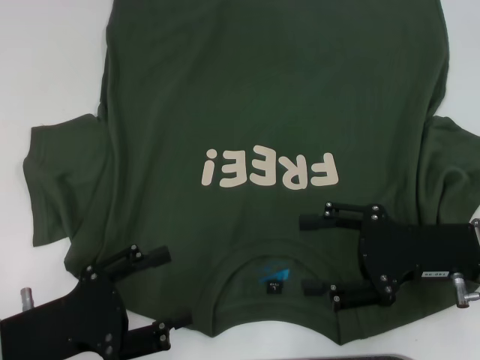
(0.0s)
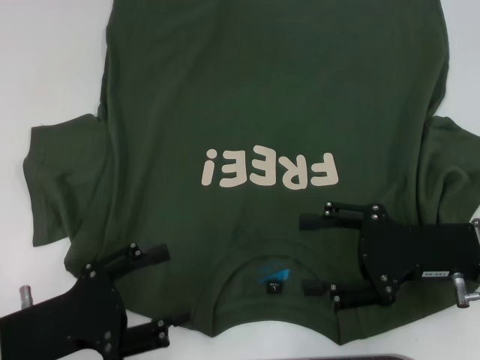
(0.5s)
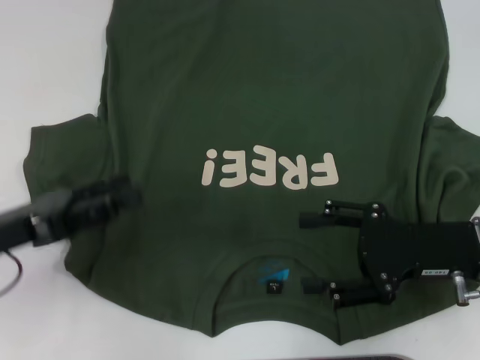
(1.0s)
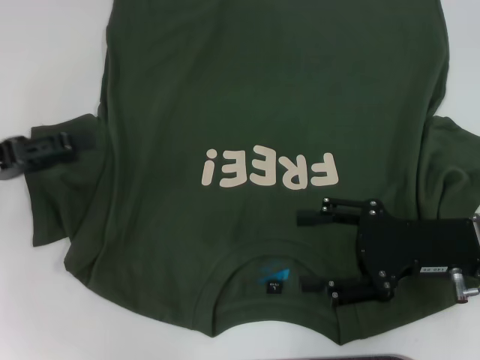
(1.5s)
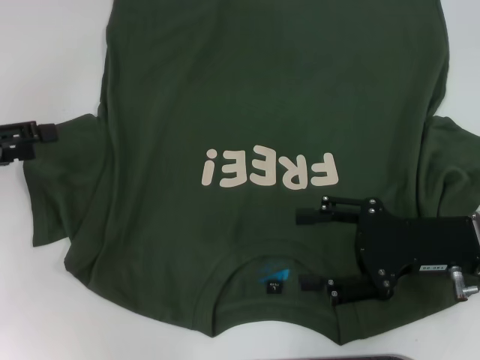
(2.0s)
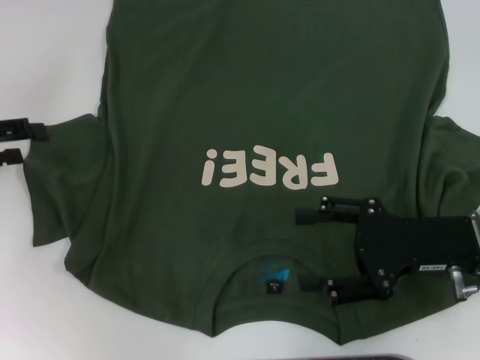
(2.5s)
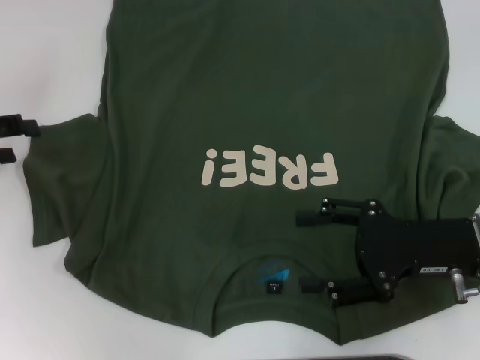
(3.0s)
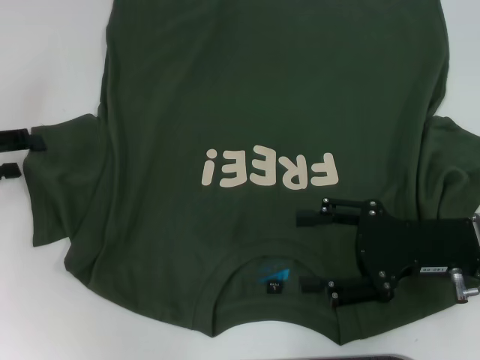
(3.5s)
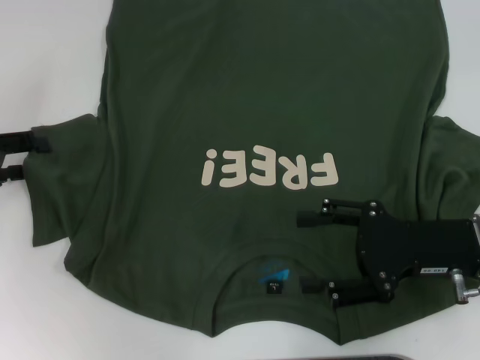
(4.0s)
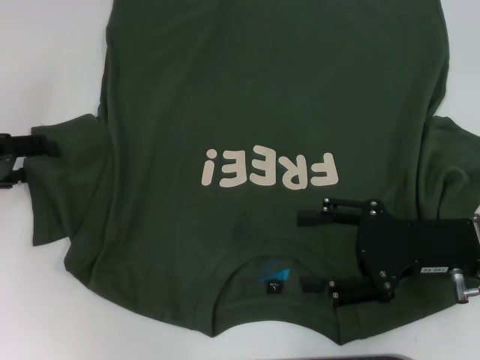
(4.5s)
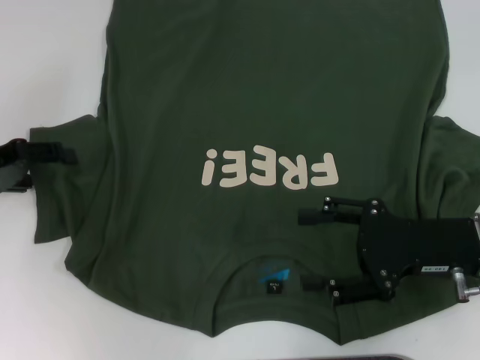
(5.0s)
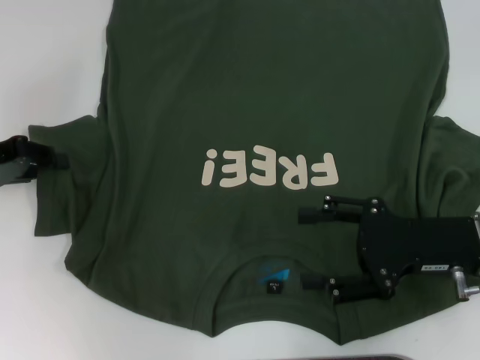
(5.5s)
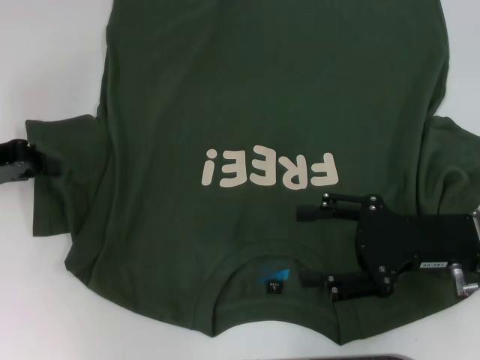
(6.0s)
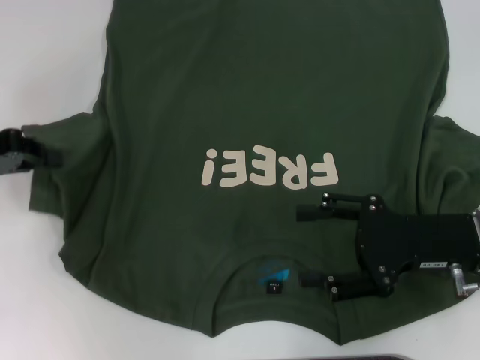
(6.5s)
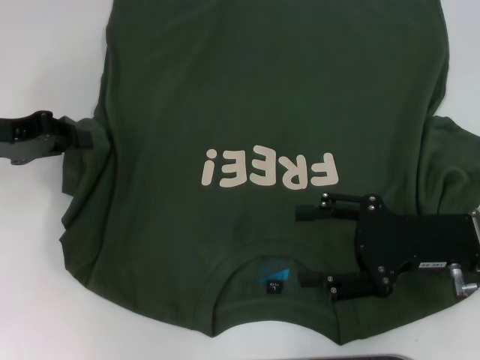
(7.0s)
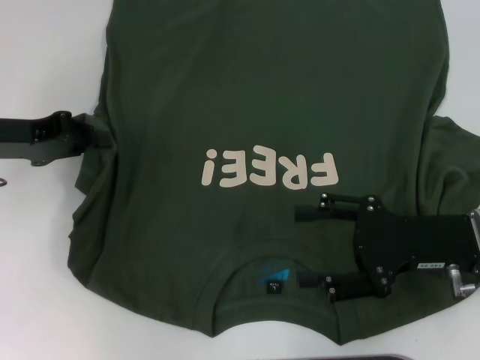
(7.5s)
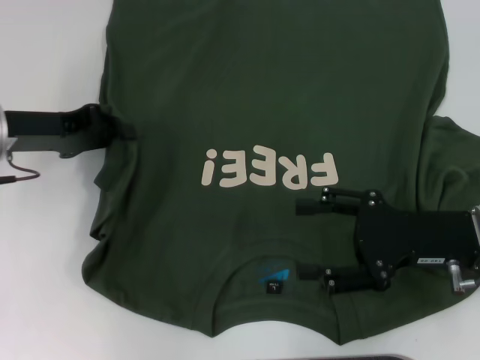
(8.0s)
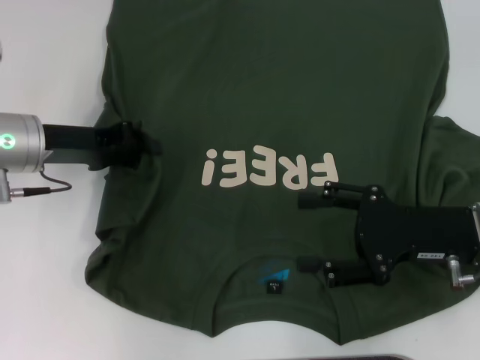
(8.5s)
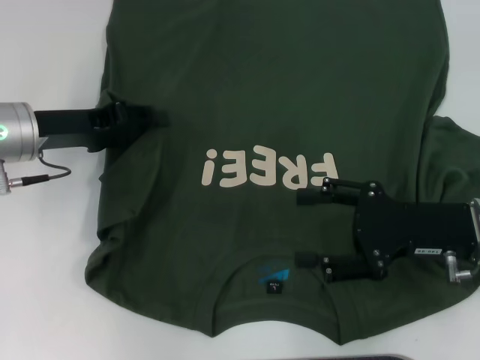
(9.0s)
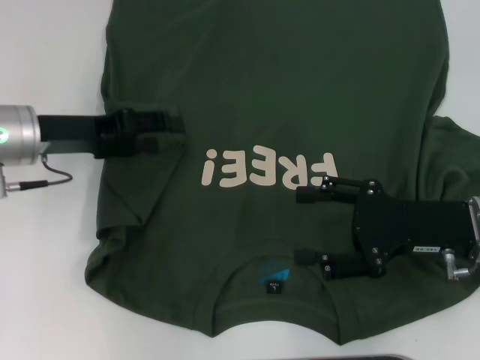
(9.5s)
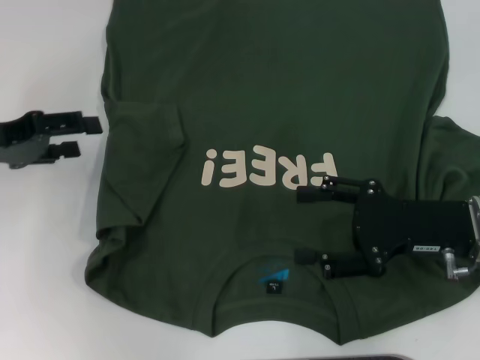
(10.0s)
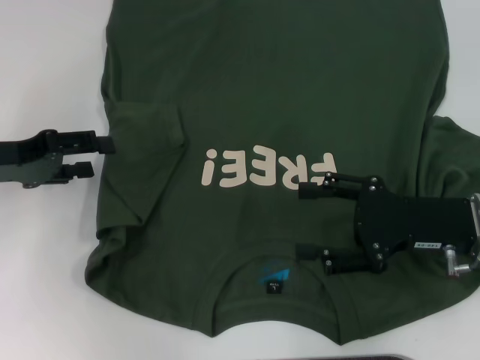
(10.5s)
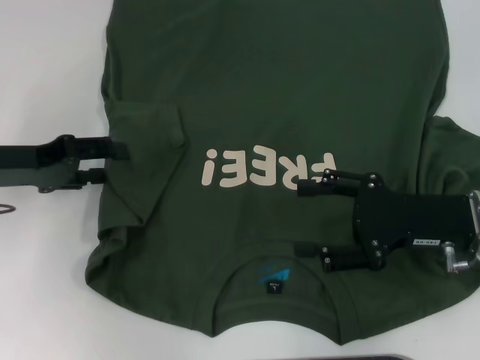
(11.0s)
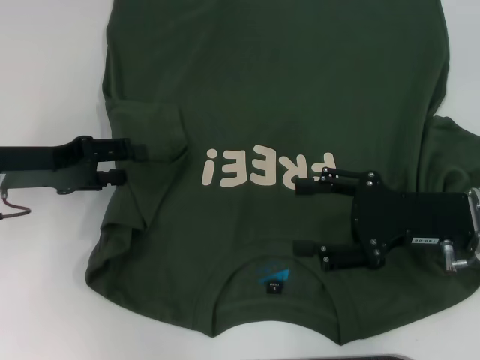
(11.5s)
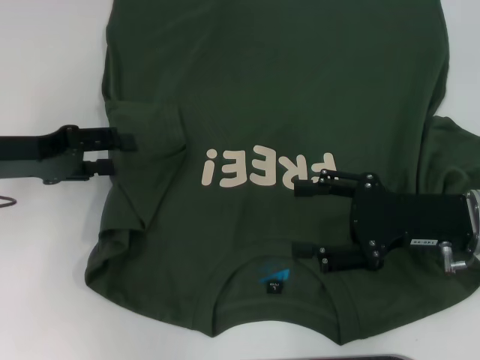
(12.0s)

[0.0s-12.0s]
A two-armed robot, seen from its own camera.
0.0s to 2.0s: The left gripper goes roughly 20 cm forward, to the left and upward.
2.0s to 4.0s: The grippers move only a little.
4.0s to 6.0s: The left gripper closes.
6.0s to 8.0s: The left gripper heads to the right, covering roughly 5 cm.
8.0s to 10.0s: The left gripper changes place by roughly 5 cm, and opens its fingers.
10.0s to 12.0s: The grippers move only a little.

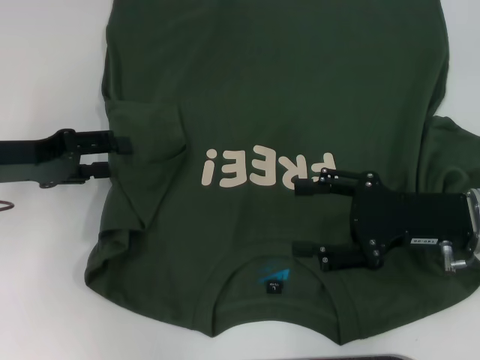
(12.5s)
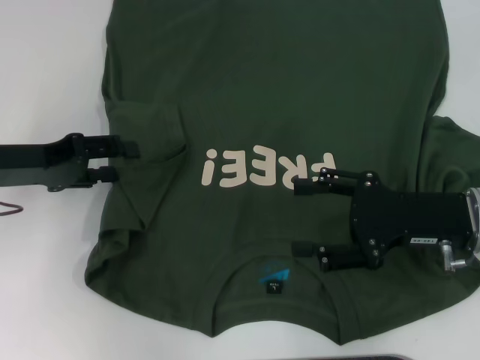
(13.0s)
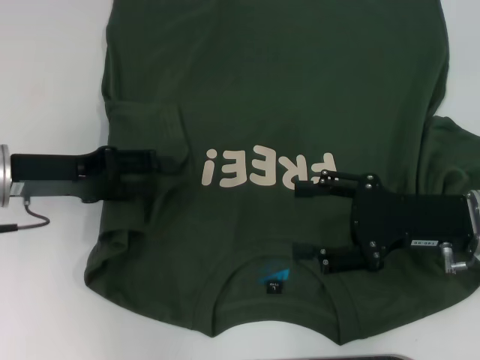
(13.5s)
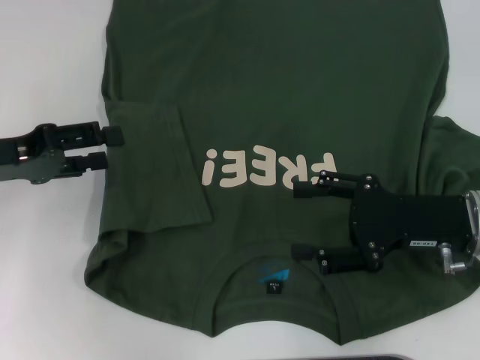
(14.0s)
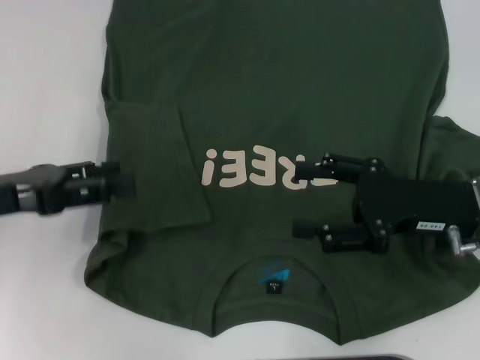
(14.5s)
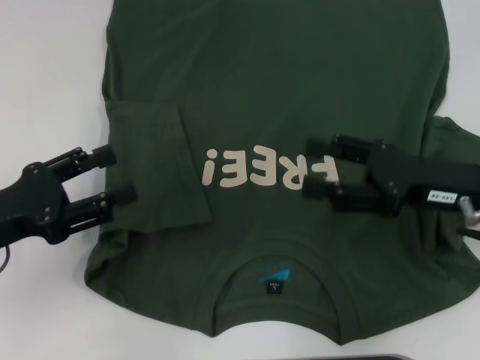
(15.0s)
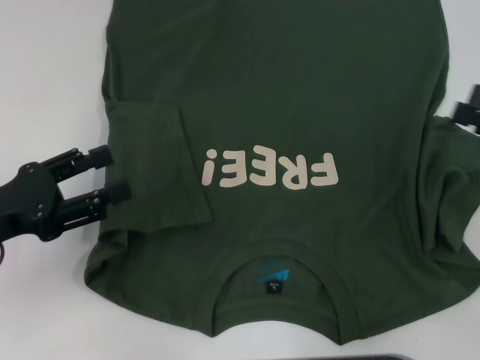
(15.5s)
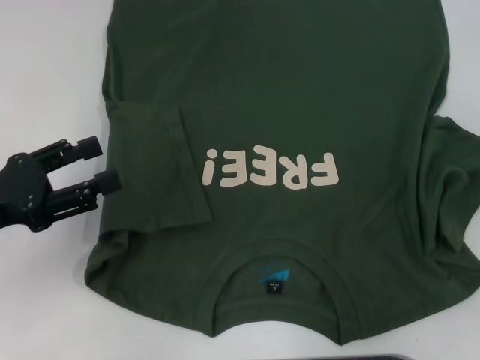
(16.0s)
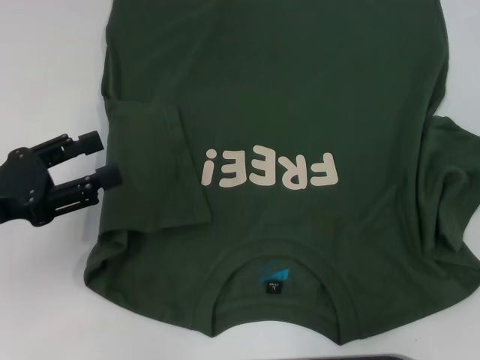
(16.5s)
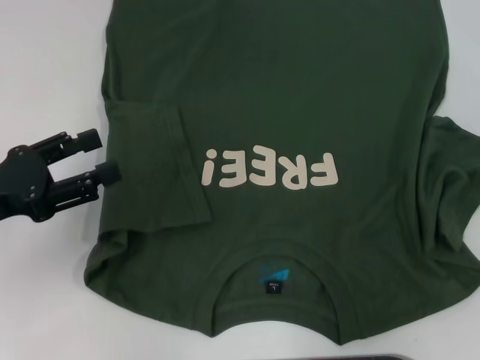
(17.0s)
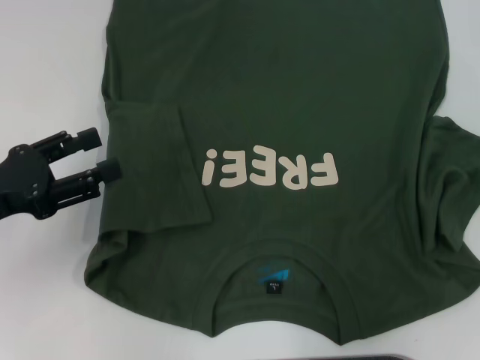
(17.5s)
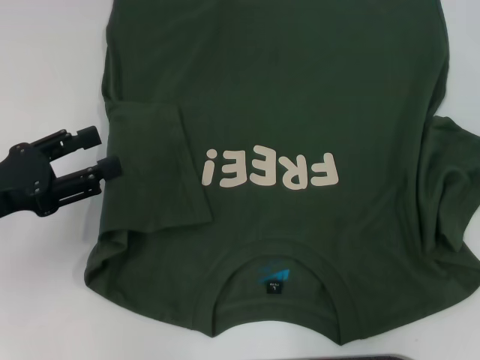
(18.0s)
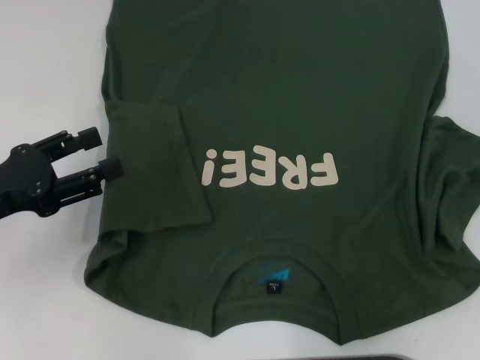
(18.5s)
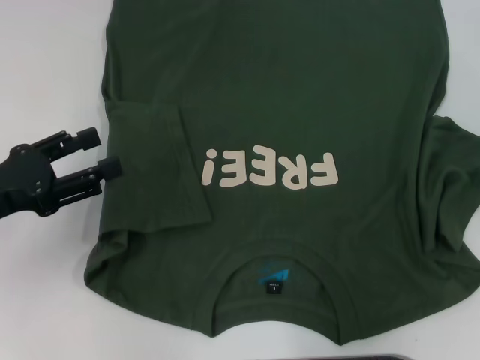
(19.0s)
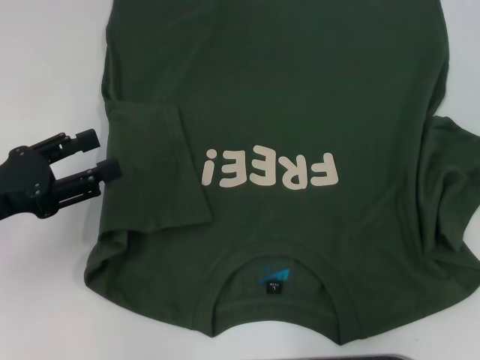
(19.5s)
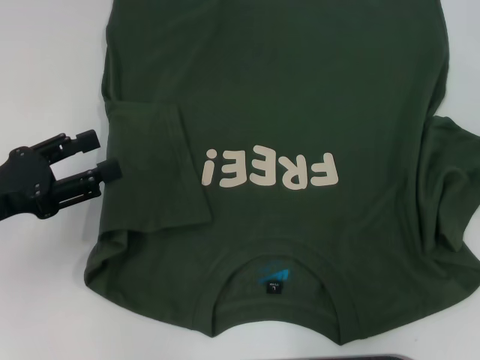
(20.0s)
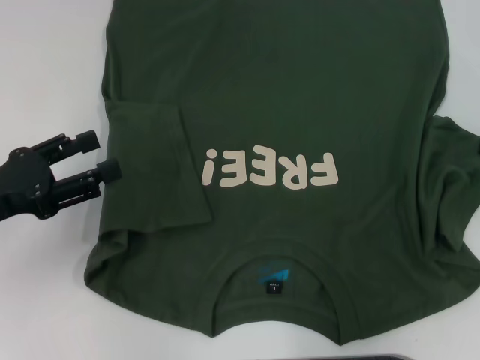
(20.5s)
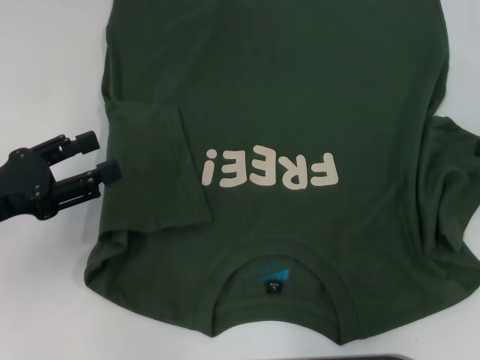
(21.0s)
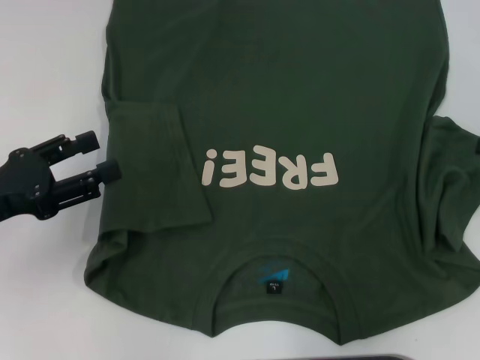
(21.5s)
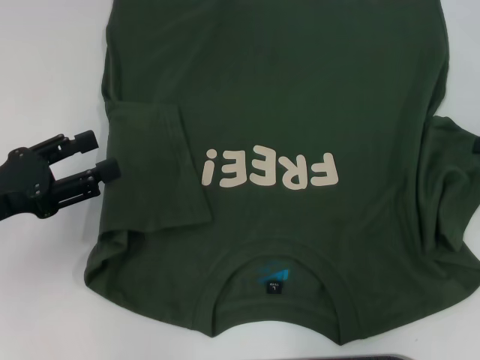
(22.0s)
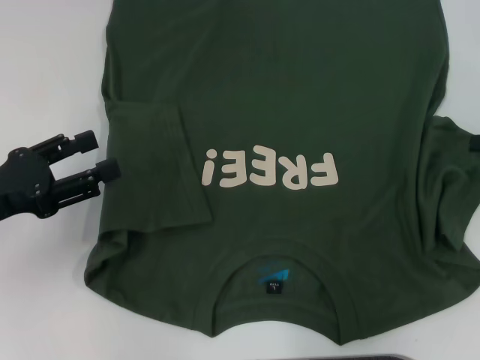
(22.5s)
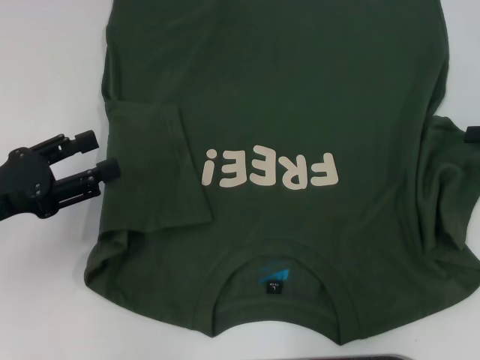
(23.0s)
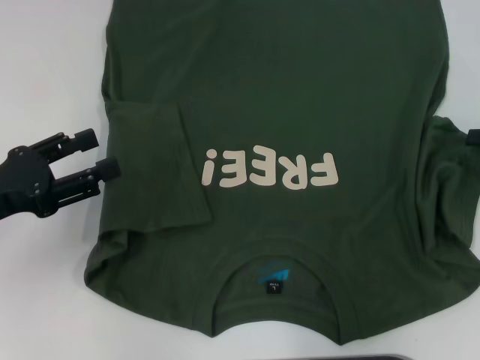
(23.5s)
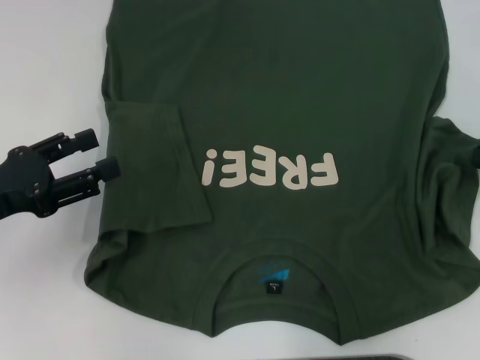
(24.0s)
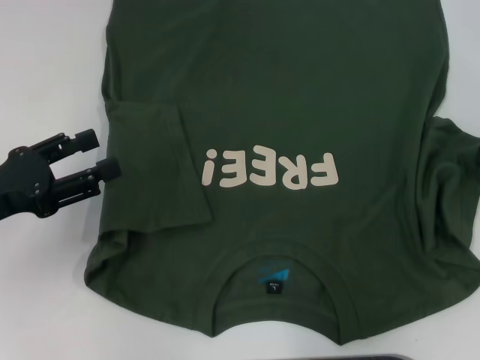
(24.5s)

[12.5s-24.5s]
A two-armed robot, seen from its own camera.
14.5s to 16.5s: The right gripper is displaced to the right by roughly 20 cm.
16.5s to 20.5s: There are only small adjustments of the grippers.
20.5s to 22.5s: Both grippers stay about where they are.

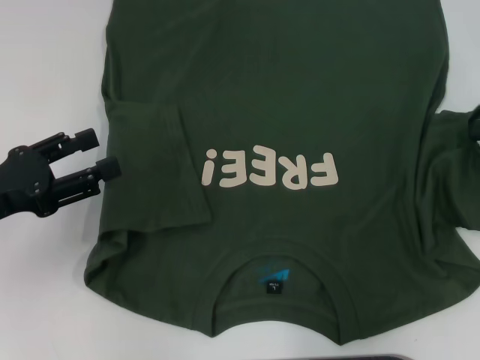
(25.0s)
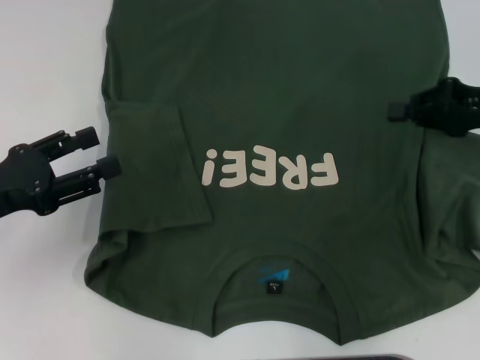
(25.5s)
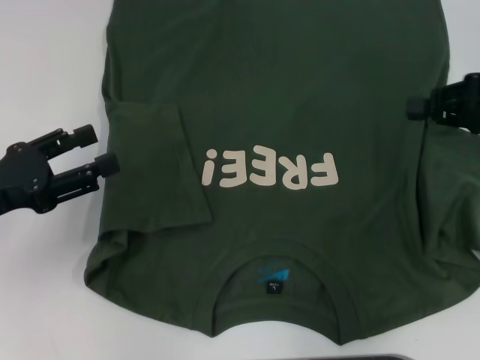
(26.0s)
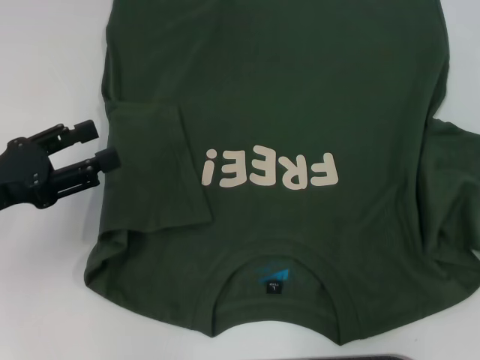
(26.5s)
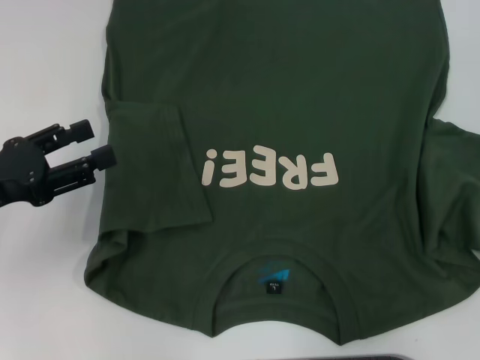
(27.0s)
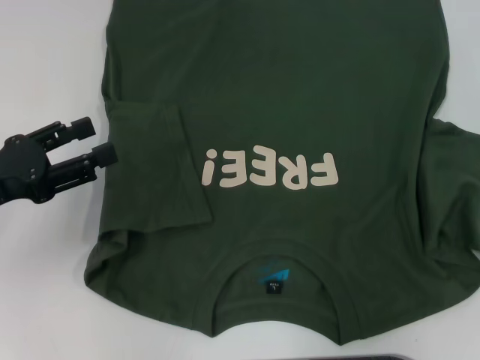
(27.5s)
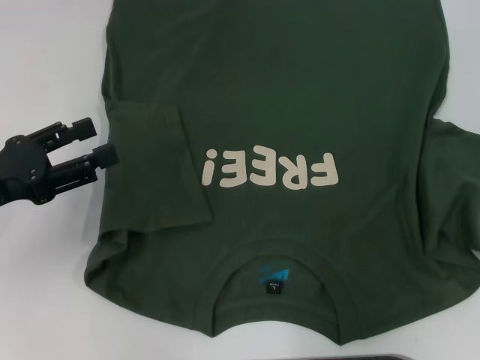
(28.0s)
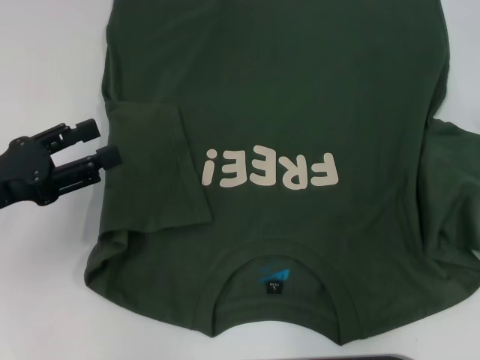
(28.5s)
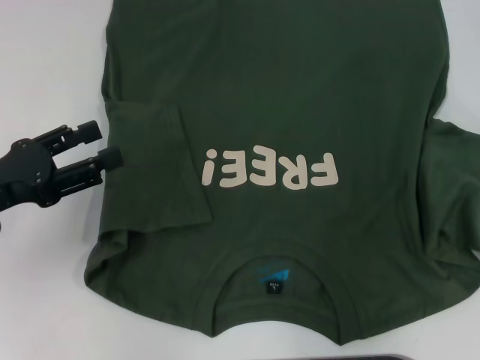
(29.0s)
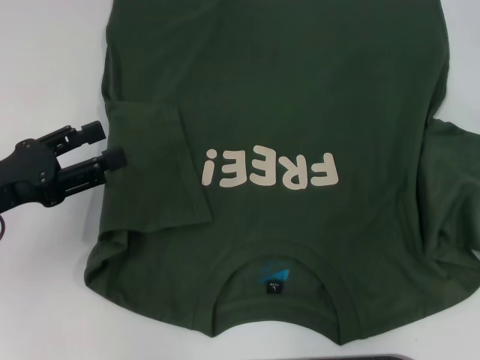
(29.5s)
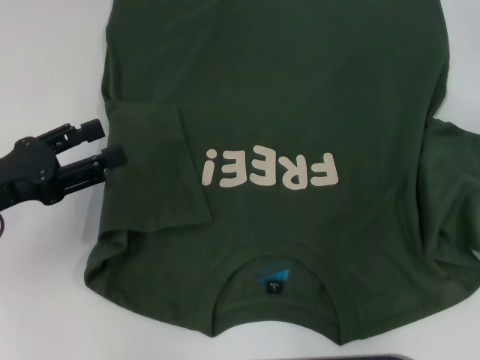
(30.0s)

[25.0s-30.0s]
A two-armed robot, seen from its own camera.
25.0s to 27.5s: The right gripper goes approximately 10 cm to the right and upward, and opens its fingers.
